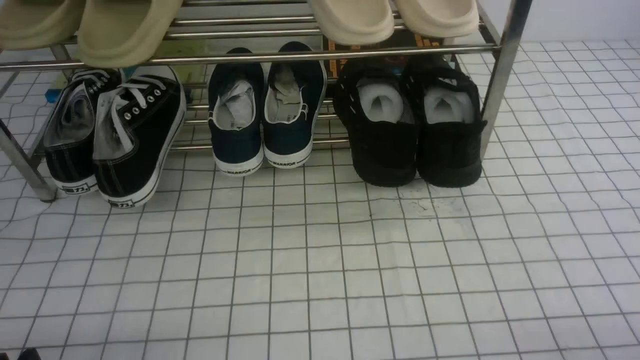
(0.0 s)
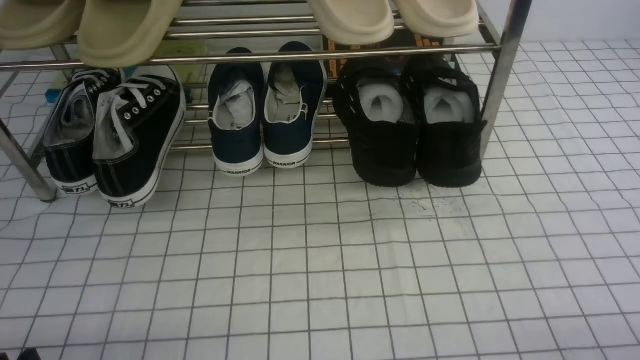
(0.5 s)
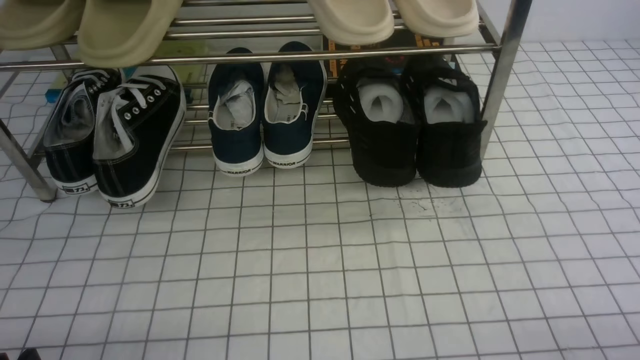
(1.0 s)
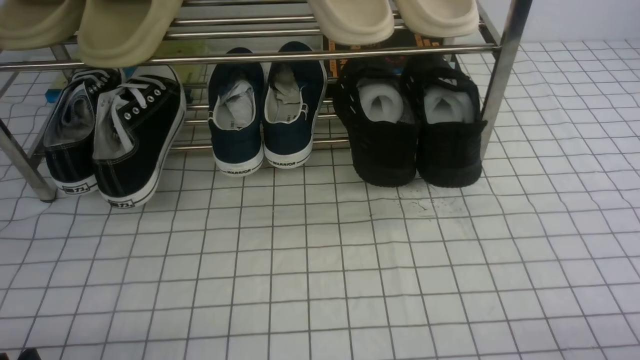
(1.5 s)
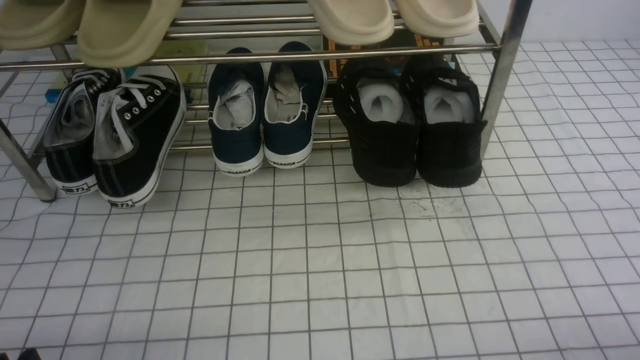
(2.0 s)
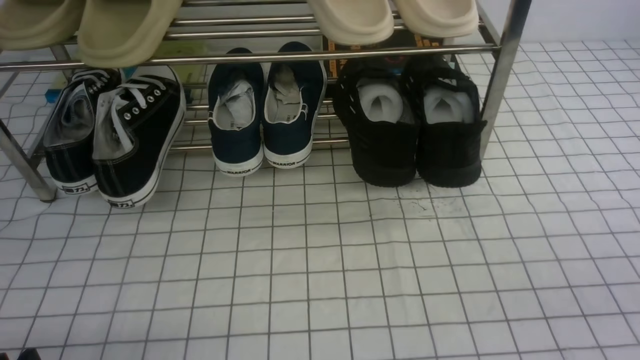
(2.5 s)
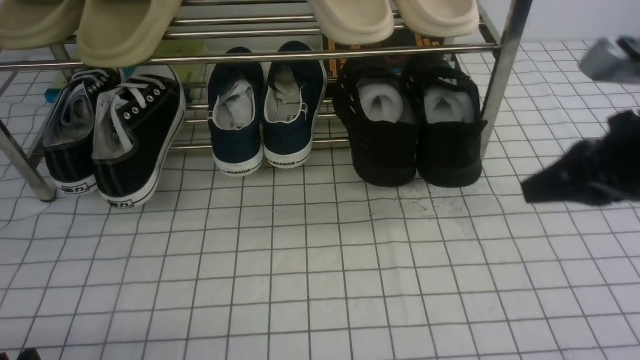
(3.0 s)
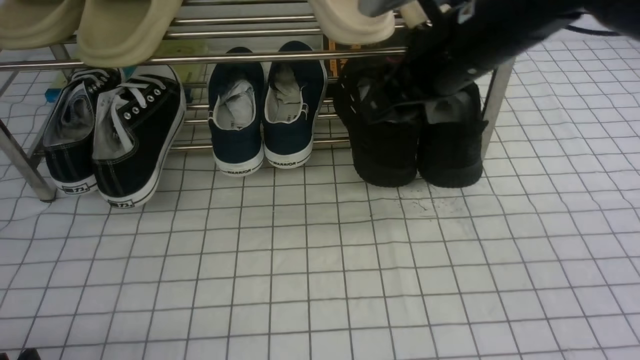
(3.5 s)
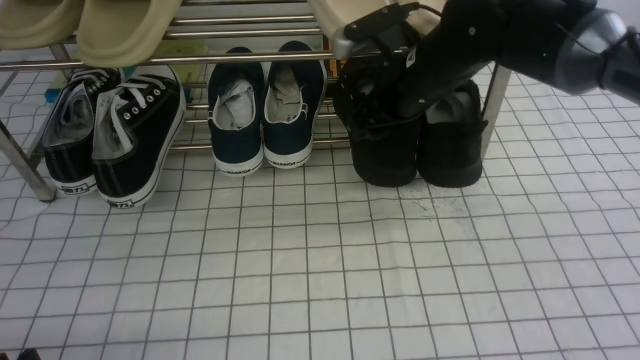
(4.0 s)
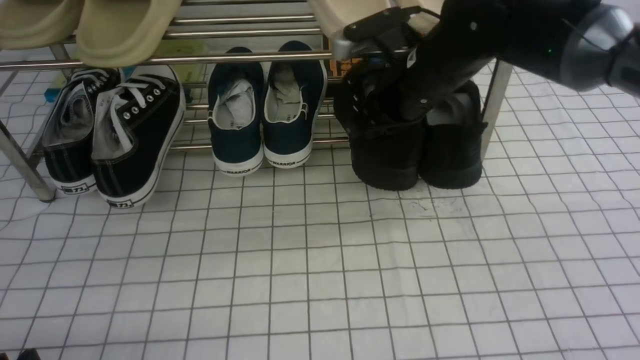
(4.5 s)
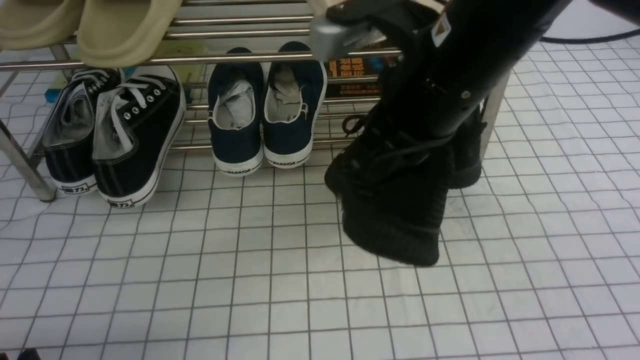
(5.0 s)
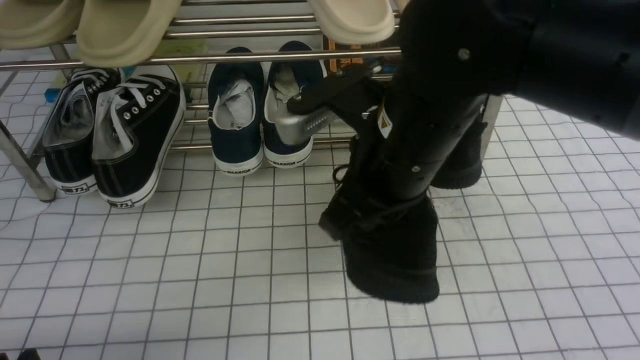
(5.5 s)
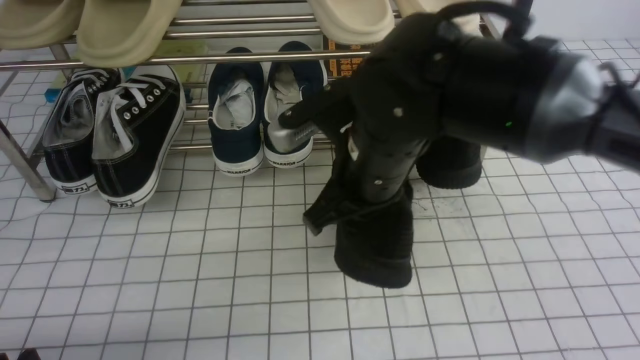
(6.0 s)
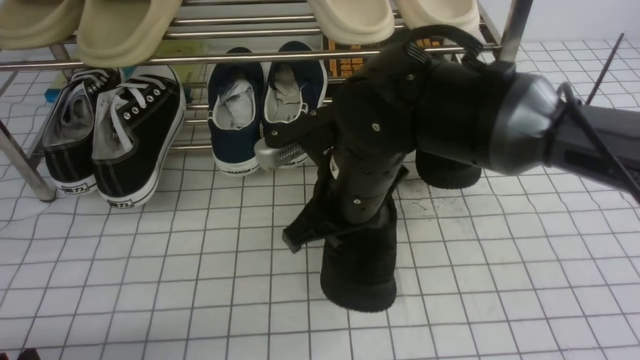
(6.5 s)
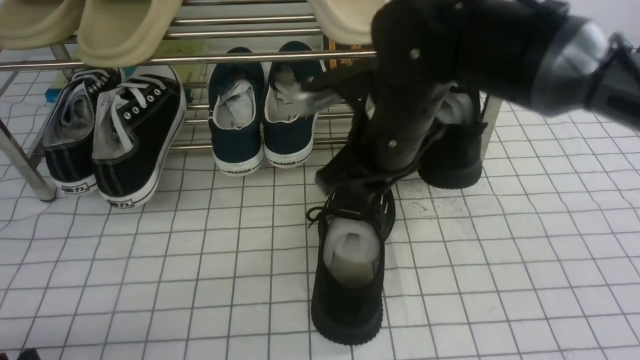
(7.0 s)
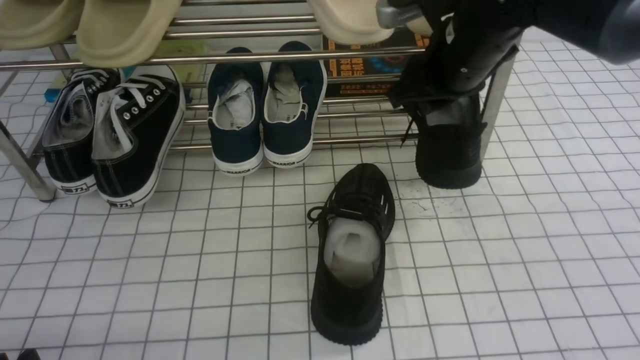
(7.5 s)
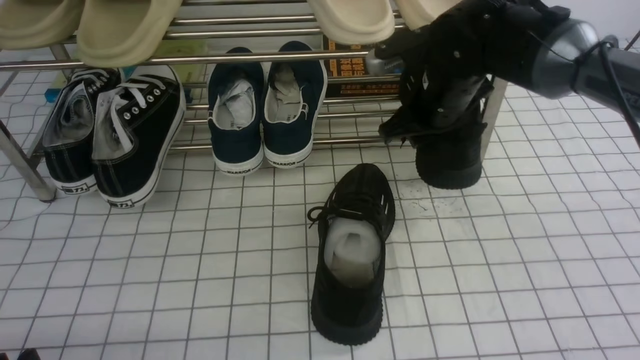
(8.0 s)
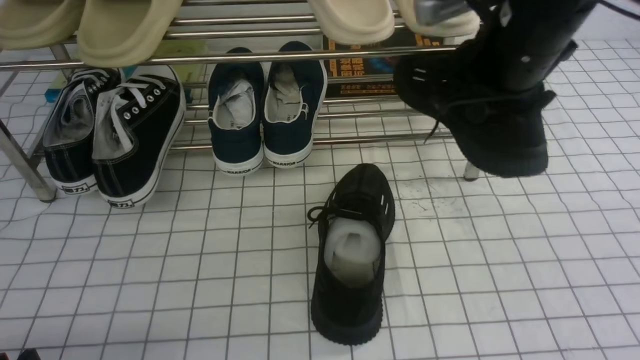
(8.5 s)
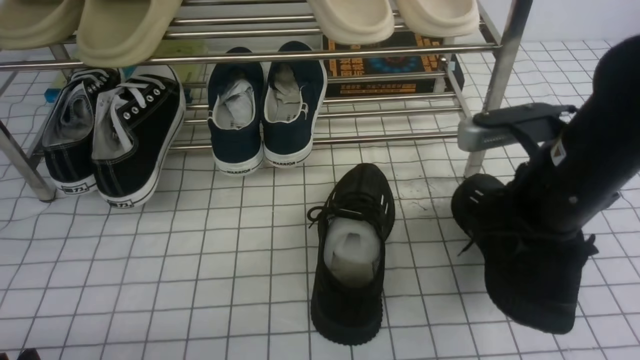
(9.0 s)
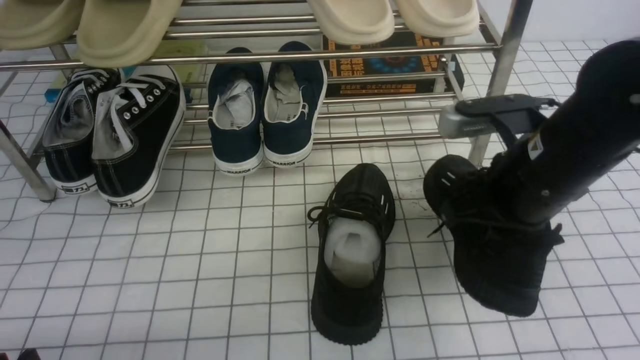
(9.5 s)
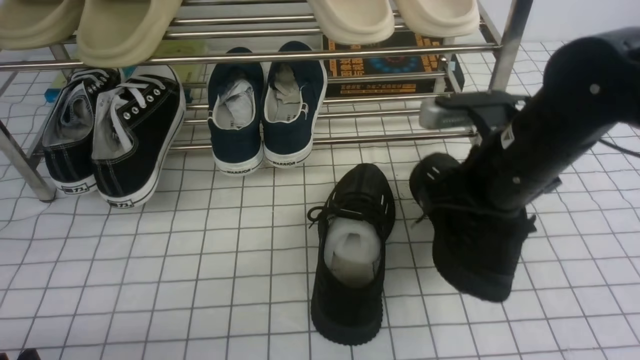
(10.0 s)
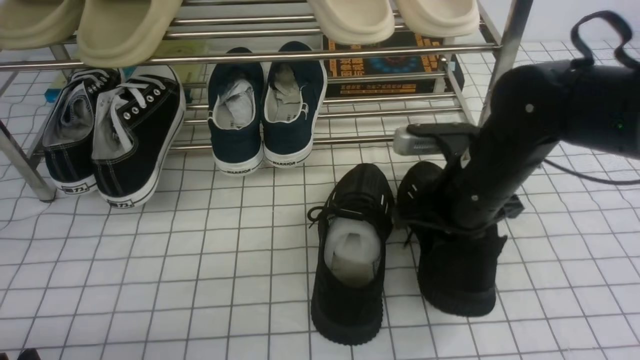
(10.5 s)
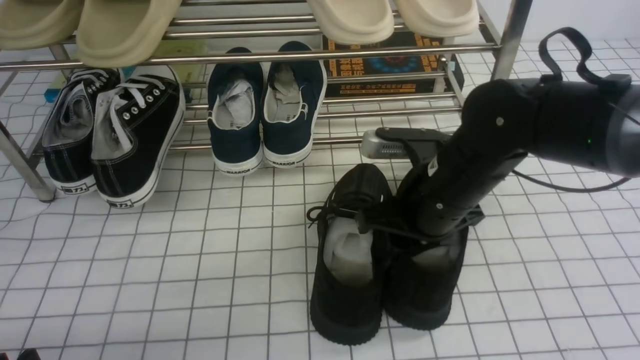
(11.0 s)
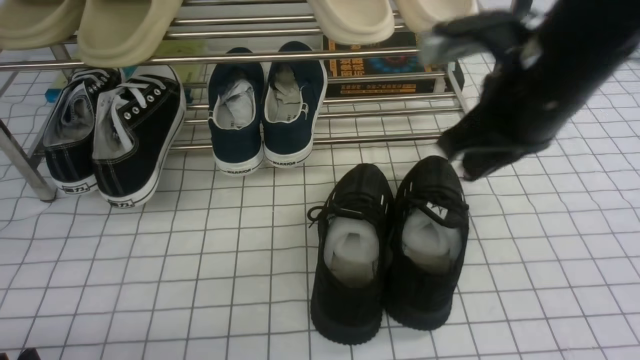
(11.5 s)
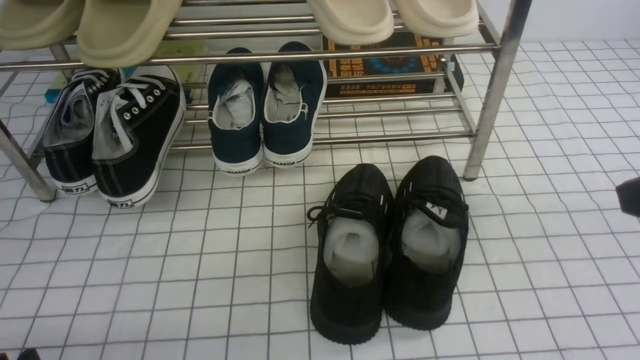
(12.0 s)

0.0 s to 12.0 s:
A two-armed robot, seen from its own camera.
Step, 0.0 to 4.0 s: use the right arm to clamp a shoe on the right side of the shoe rack.
Step, 4.5 to 7.0 s: use the right arm to take out the clamped shoe from the shoe rack and put it down.
Step, 7.5 to 8.0 s: use the right arm to clamp a shoe on the right side of the shoe rack.
Step, 8.5 to 11.0 s: use the right arm to take out the clamped shoe from the shoe rack and put it down.
2.0 to 4.0 s: The right gripper shifts about 40 cm forward and to the left, and opens its fingers.
4.0 to 6.0 s: The right gripper moves backward and to the left, approximately 15 cm, and closes.
6.0 to 8.0 s: The right gripper shifts some 15 cm forward and to the right, and opens its fingers.
8.0 to 10.0 s: The right gripper is displaced backward by approximately 15 cm, and closes its fingers.
10.0 to 12.0 s: The right gripper travels backward, upward and to the right by approximately 20 cm, and opens, then closes again.

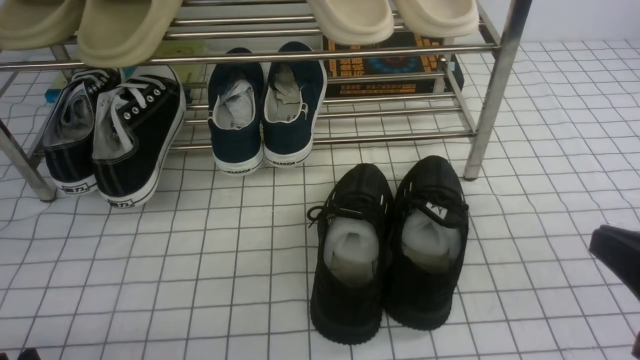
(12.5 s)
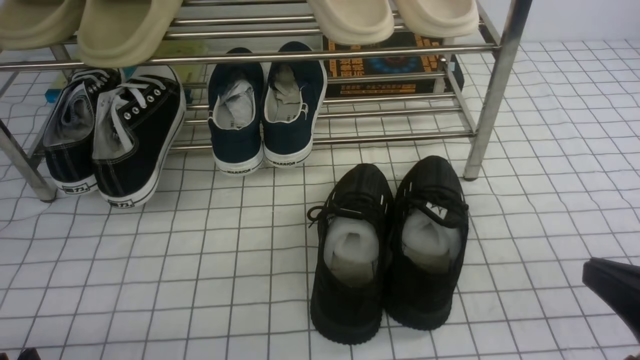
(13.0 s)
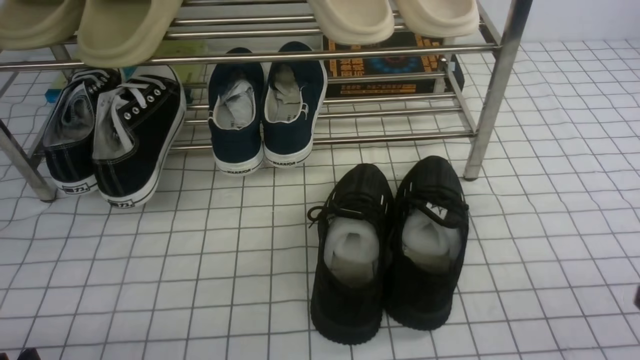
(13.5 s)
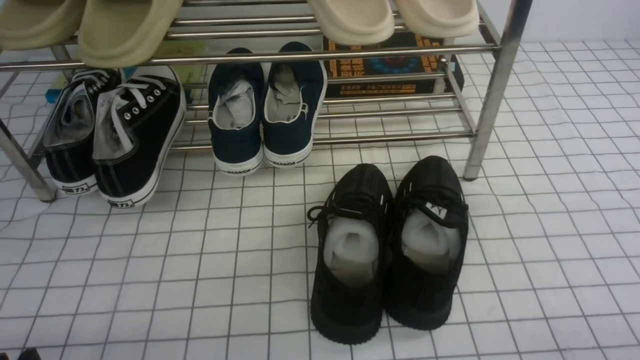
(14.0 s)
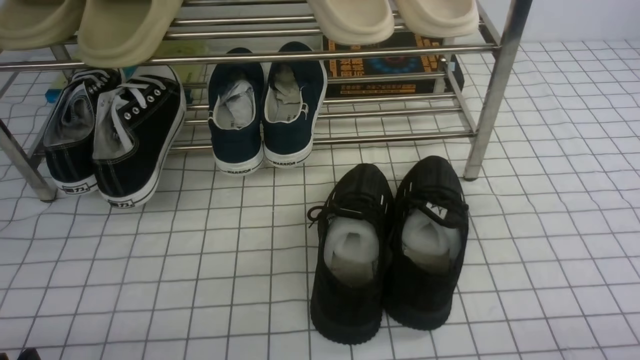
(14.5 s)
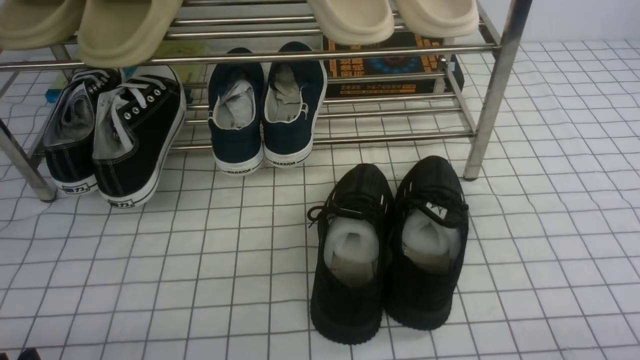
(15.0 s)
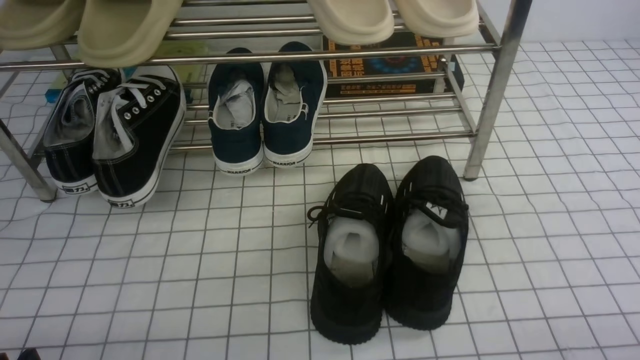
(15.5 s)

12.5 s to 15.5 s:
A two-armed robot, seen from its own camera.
12.5 to 14.0 s: The right gripper shifts roughly 15 cm downward, to the right and backward.
14.0 to 15.5 s: Both grippers stay about where they are.

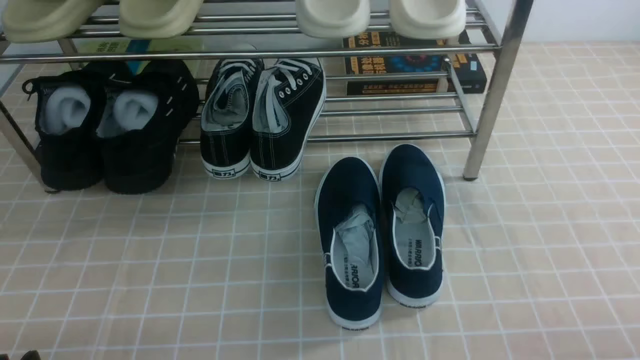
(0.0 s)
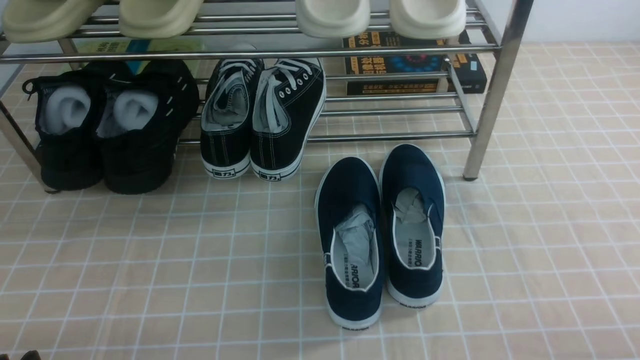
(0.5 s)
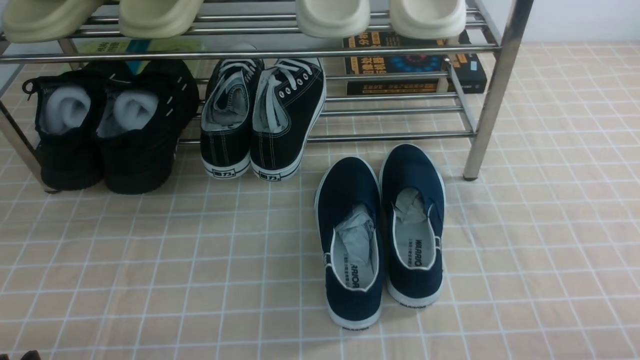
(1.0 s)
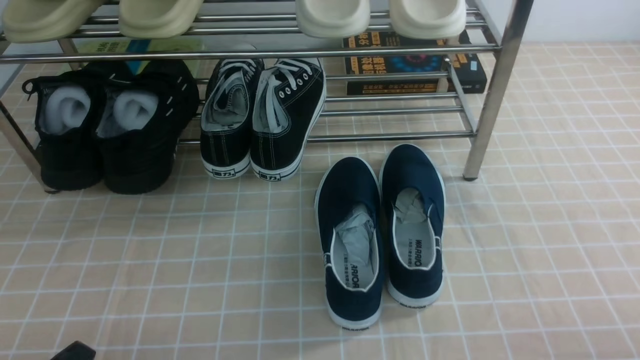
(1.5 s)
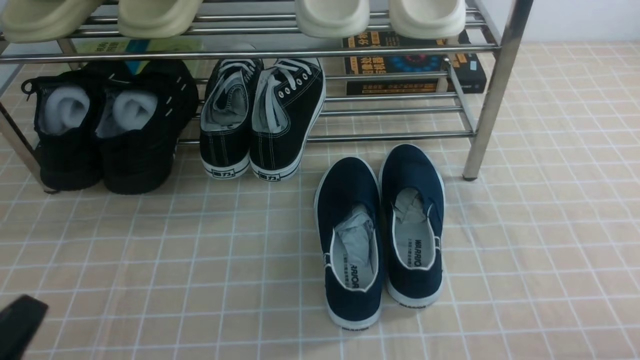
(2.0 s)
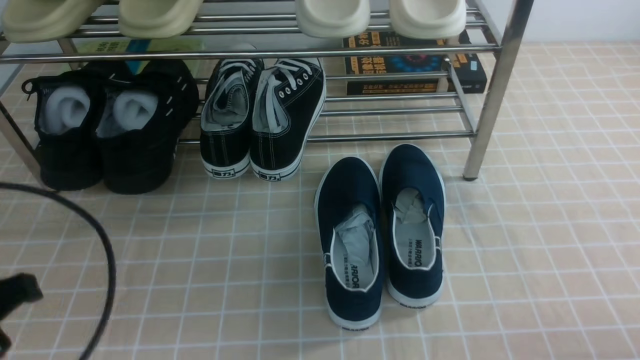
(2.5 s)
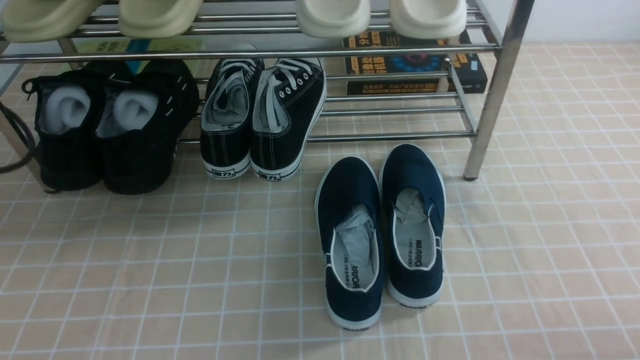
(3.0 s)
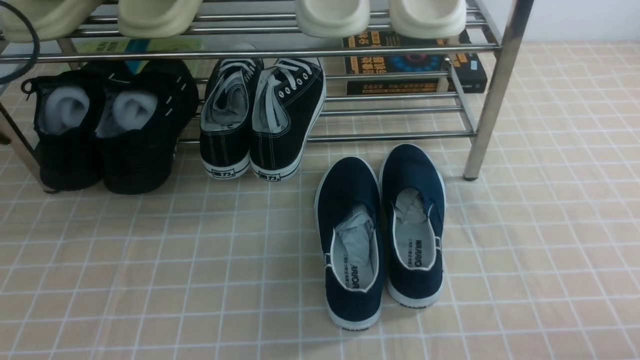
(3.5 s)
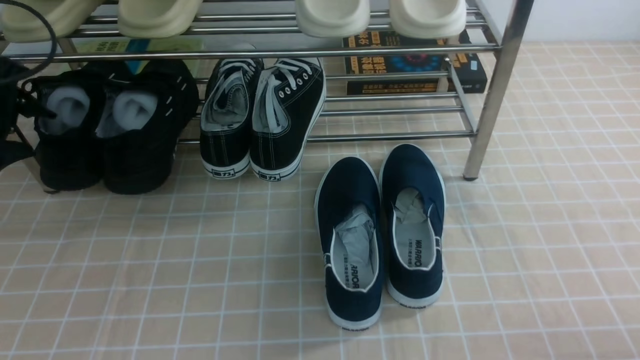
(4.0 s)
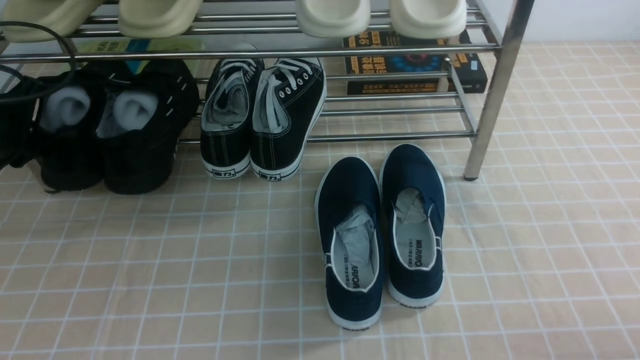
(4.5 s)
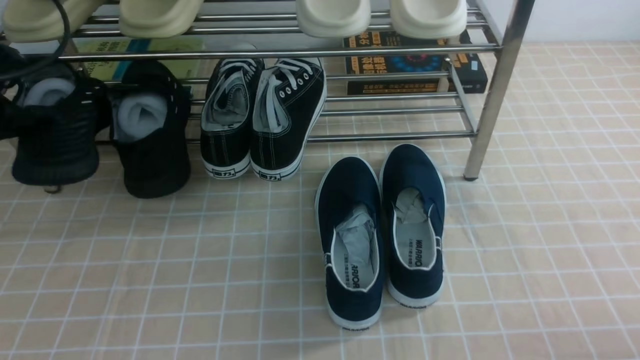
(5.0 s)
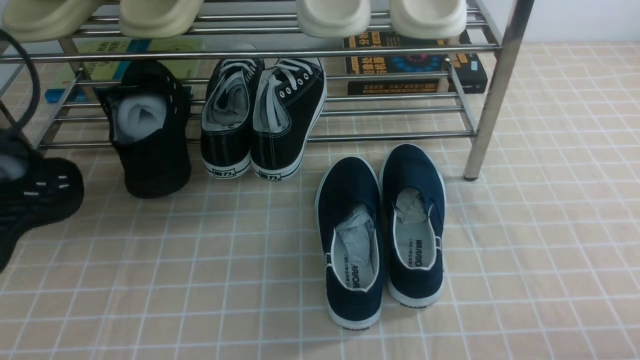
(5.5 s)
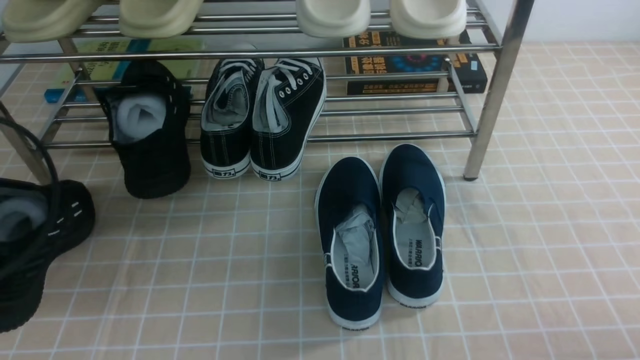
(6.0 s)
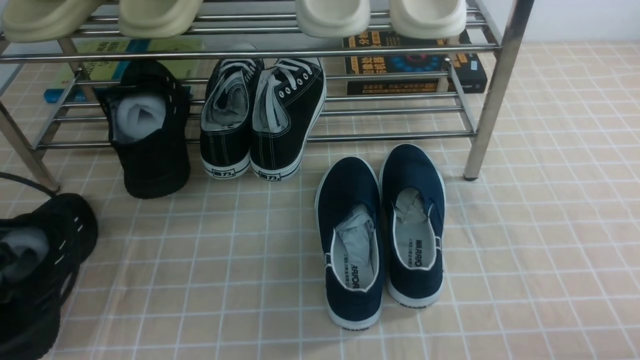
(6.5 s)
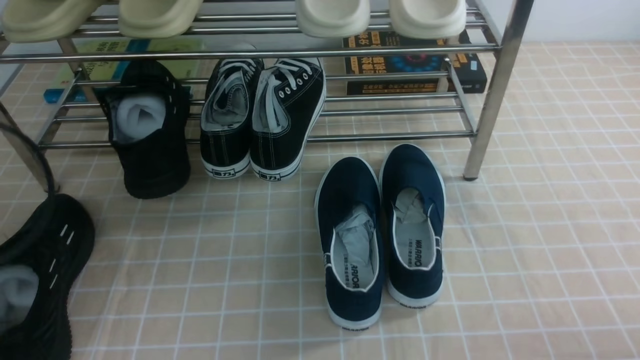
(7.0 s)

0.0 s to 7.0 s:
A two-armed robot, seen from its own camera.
Step, 0.0 to 4.5 s: use the left arm to clamp a shoe on the left side of the shoe rack.
Step, 5.0 to 6.5 s: Use your left arm to remove the clamped shoe from the shoe rack and put it down.
0.0 to 2.0 s: The left gripper is displaced upward by some 5 cm, and closes its fingers.
2.0 to 3.5 s: The left gripper goes about 25 cm forward and to the left, and opens.
3.5 to 5.0 s: The left gripper goes downward and returns, roughly 5 cm each way, and closes.
5.0 to 7.0 s: The left gripper moves backward, some 10 cm, and opens up.
